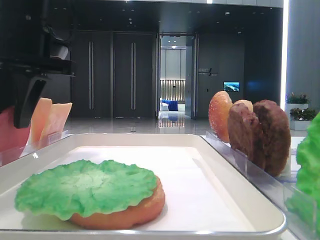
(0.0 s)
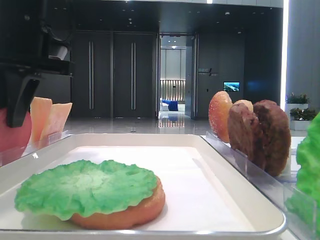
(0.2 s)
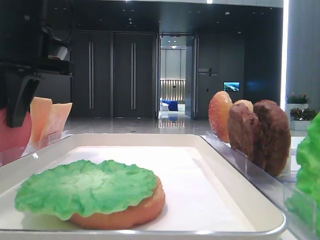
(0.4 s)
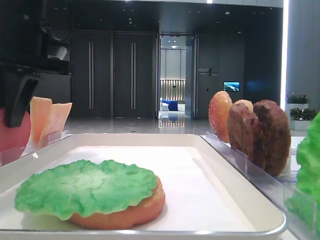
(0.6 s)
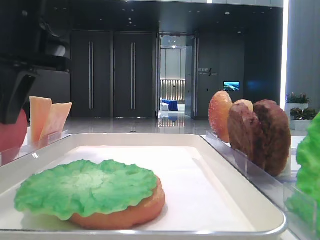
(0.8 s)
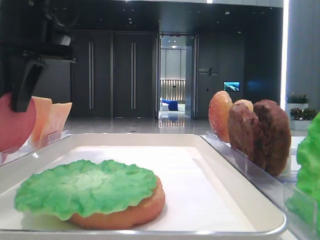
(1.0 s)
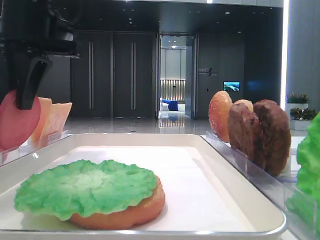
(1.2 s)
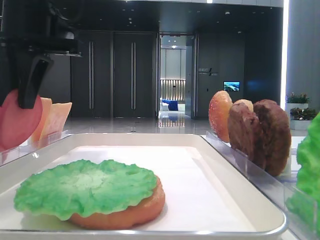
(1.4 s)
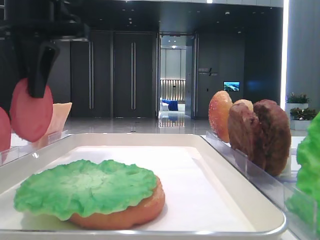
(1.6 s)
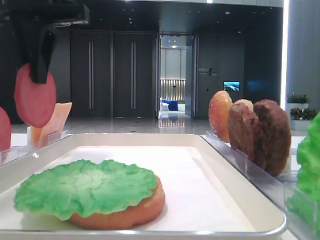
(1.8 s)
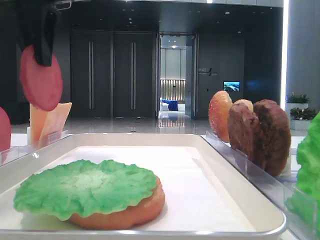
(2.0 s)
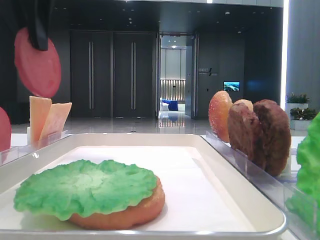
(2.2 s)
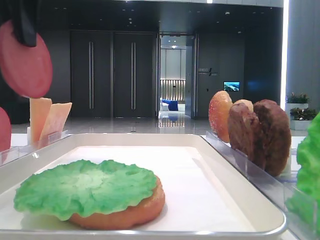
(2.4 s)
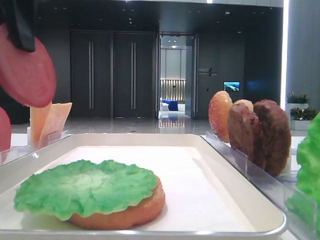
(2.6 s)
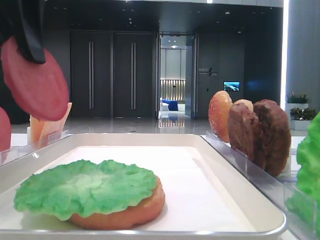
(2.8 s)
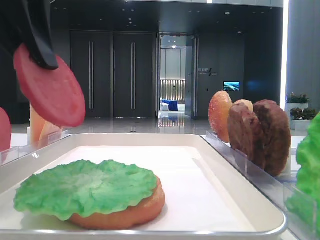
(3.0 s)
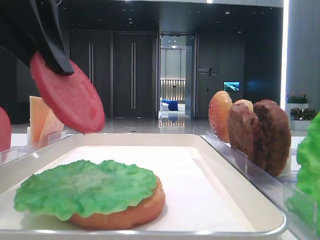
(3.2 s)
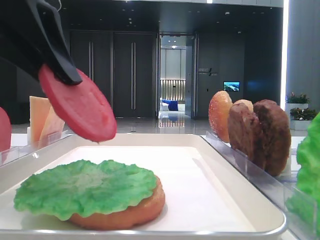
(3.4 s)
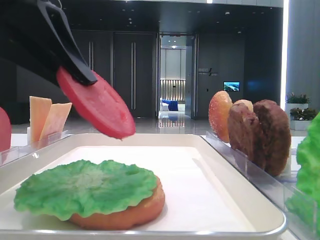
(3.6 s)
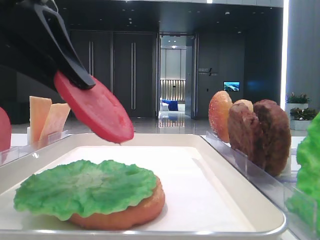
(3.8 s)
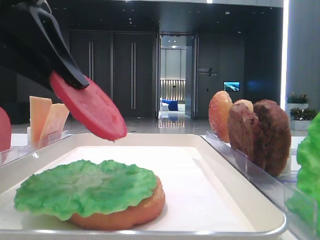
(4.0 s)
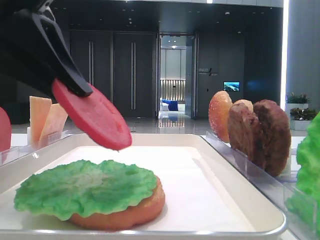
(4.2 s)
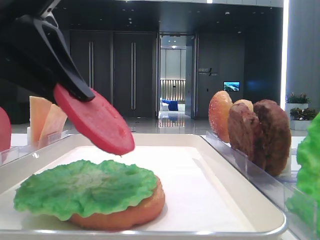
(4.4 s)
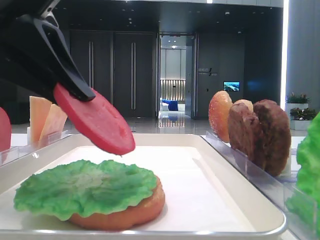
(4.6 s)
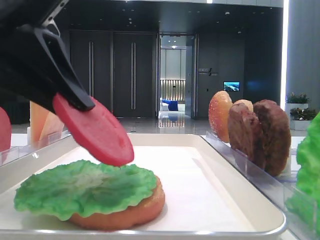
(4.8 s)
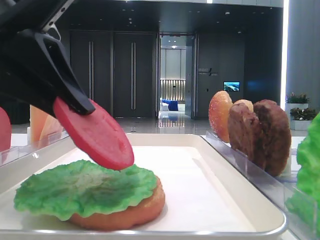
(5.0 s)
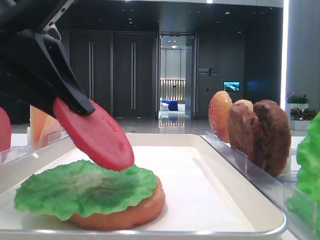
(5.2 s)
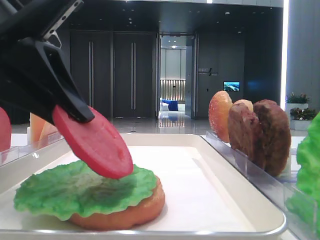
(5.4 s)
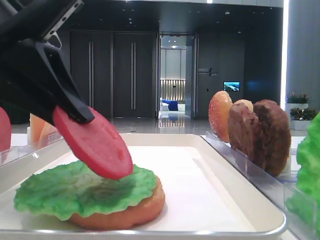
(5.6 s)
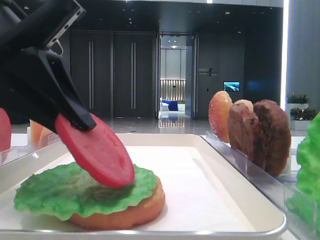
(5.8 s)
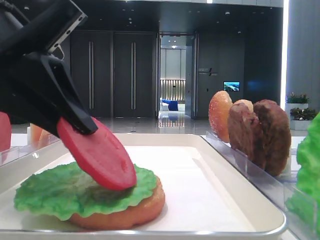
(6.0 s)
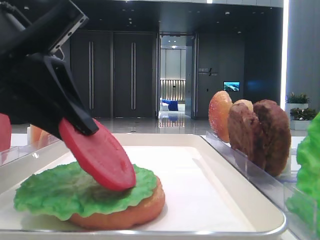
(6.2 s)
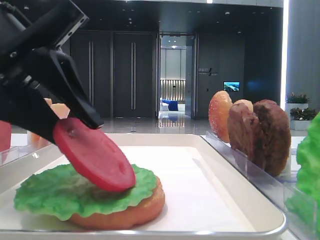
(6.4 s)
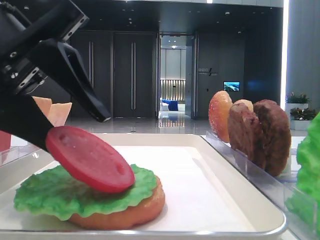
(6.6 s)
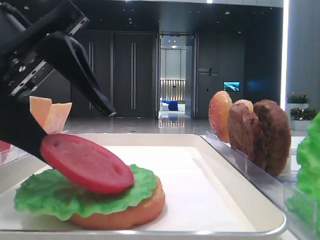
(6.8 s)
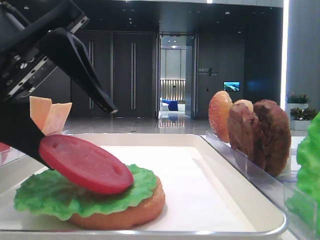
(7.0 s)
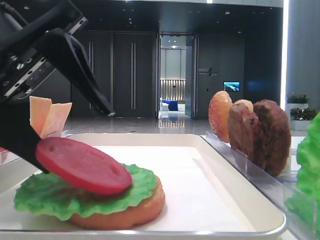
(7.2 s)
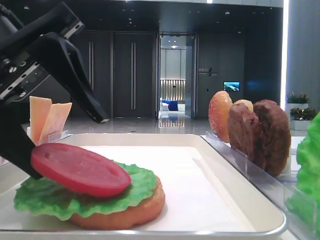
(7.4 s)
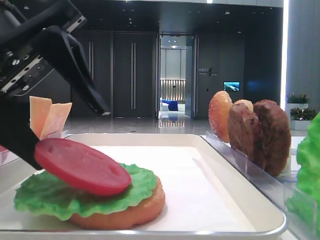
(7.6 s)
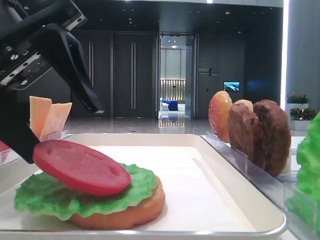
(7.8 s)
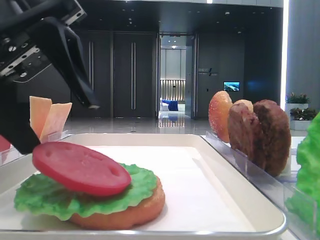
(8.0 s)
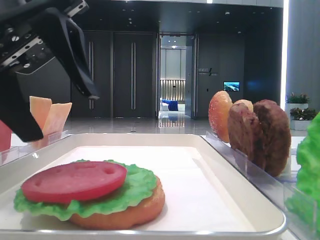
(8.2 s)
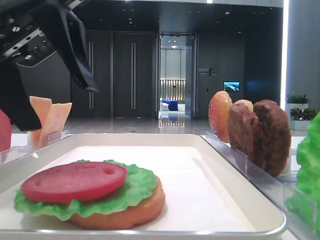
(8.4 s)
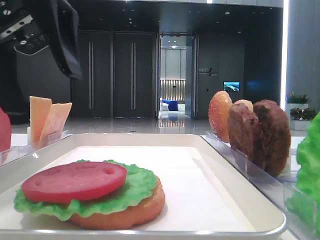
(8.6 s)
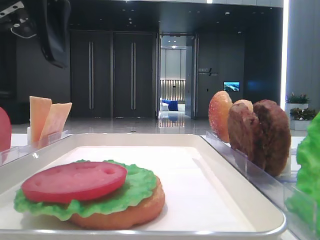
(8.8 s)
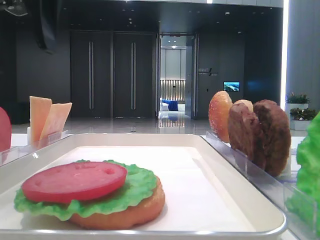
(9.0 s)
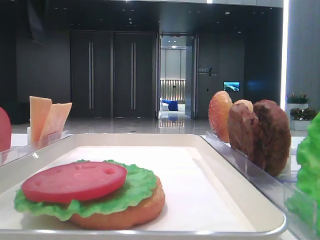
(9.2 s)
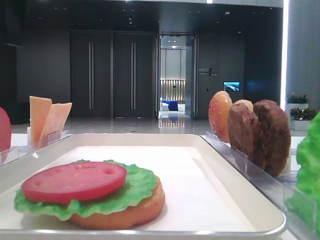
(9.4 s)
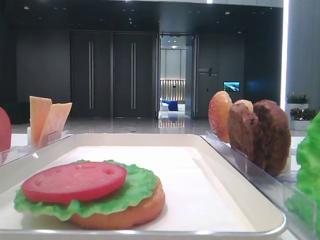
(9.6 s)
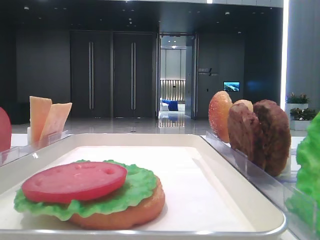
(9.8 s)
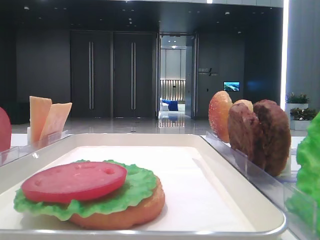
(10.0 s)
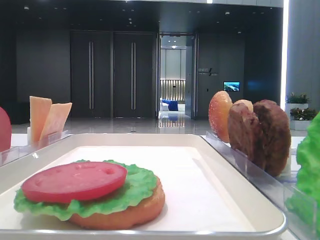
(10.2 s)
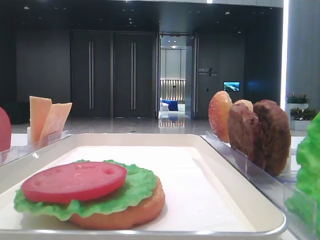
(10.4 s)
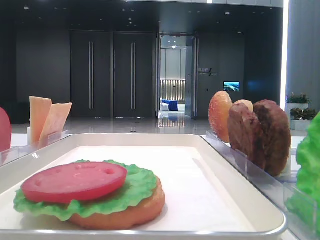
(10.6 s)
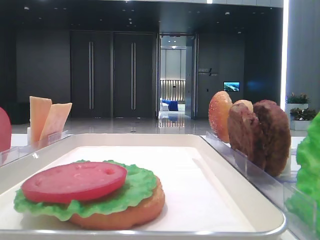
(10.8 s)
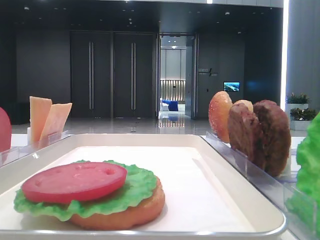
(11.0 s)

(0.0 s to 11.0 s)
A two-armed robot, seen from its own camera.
Step, 0.8 s - 8.0 s: Place the tomato slice on the lettuce leaf with the left hand.
0.0 s - 1.6 s: There are only small adjustments of the grippers.
1.6 s - 3.2 s: The left gripper is displaced backward by about 10 cm.
3.2 s - 4.8 s: The left gripper goes some 5 cm downward.
4.8 s - 6.2 s: There are only small adjustments of the grippers.
6.2 s - 7.8 s: The left gripper opens its fingers.
7.8 s - 9.4 s: The left gripper is displaced upward by some 10 cm.
9.4 s - 11.0 s: The left gripper travels backward and to the left by approximately 20 cm.

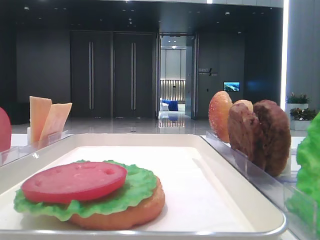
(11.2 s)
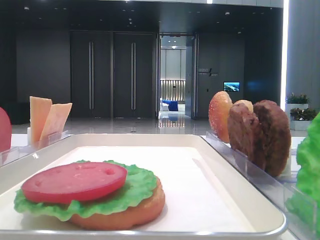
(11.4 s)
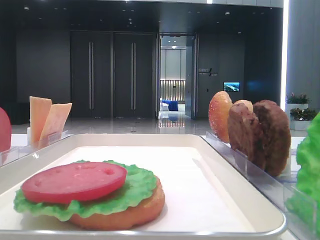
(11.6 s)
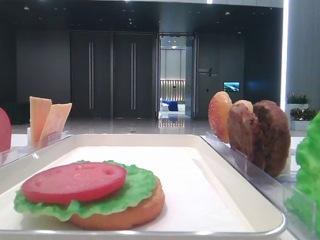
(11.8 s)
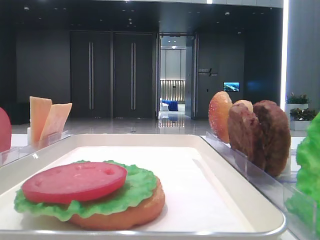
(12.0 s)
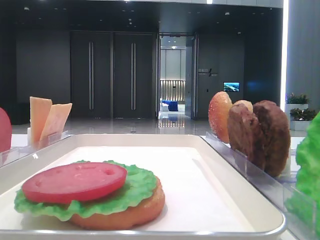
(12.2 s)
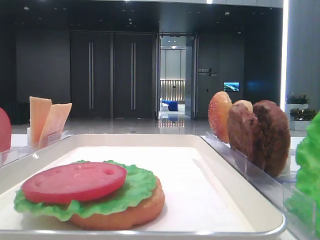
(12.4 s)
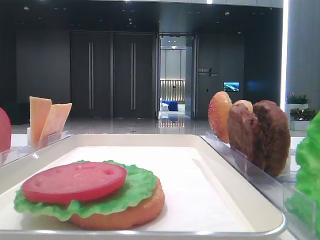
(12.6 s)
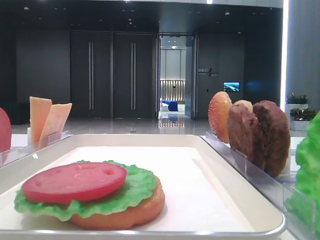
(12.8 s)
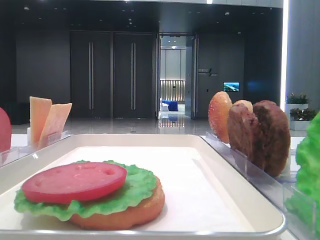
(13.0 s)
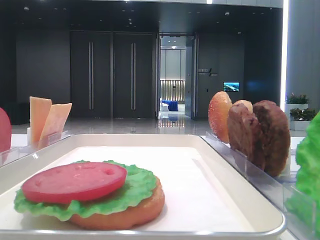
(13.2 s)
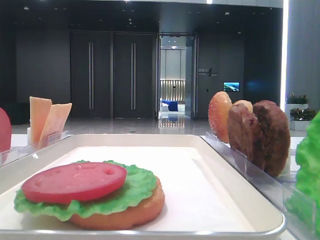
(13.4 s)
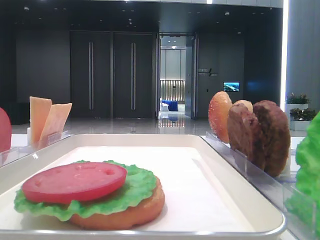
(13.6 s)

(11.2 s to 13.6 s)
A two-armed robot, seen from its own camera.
12.4 s - 13.6 s: Both grippers stay about where they are.

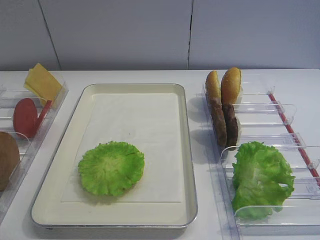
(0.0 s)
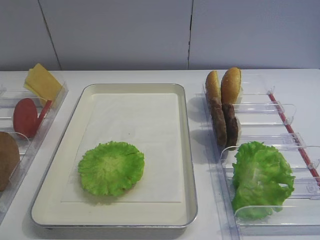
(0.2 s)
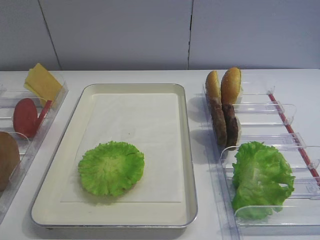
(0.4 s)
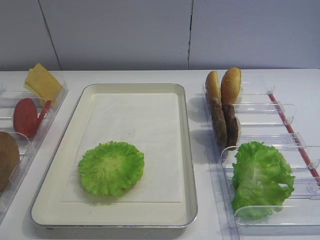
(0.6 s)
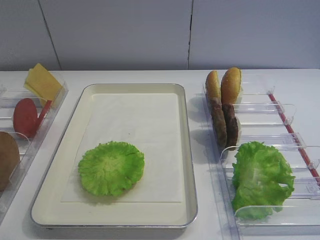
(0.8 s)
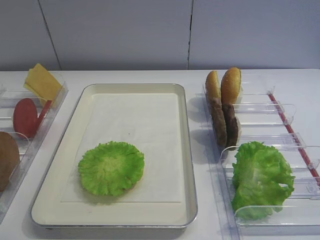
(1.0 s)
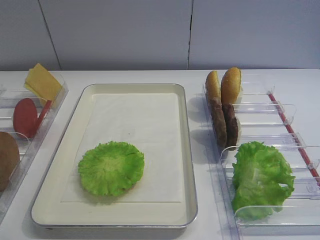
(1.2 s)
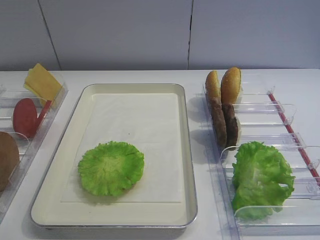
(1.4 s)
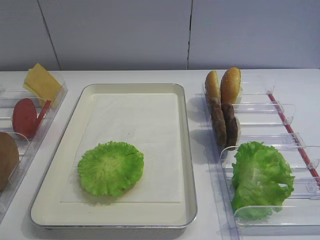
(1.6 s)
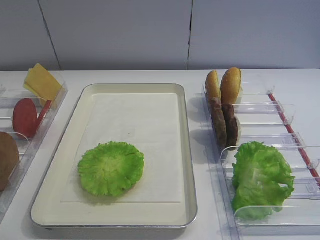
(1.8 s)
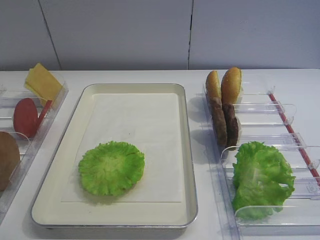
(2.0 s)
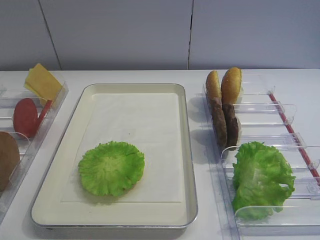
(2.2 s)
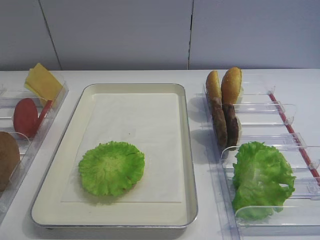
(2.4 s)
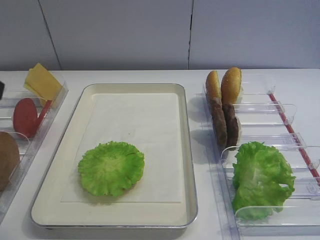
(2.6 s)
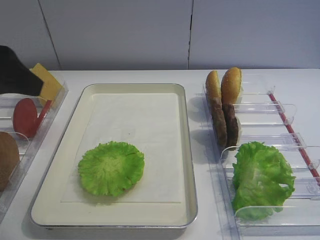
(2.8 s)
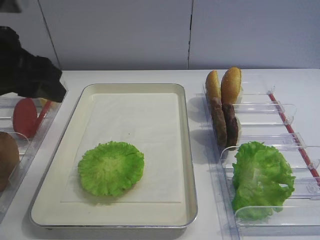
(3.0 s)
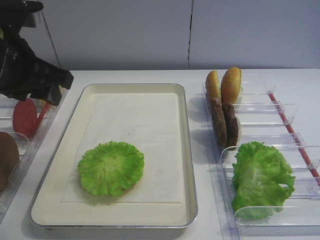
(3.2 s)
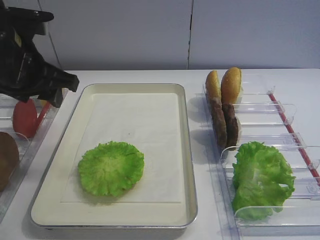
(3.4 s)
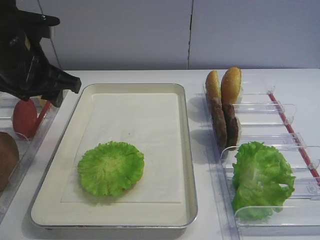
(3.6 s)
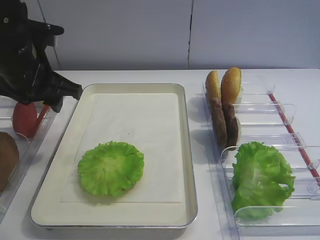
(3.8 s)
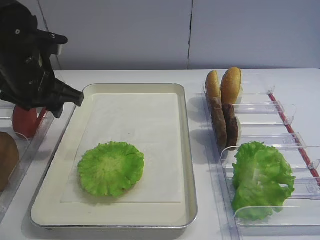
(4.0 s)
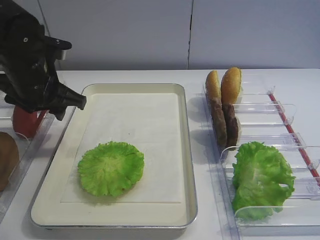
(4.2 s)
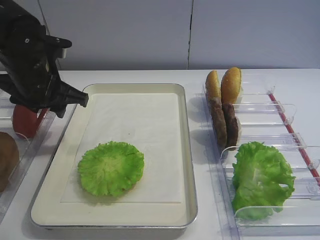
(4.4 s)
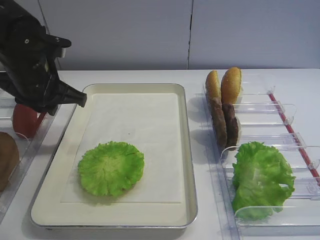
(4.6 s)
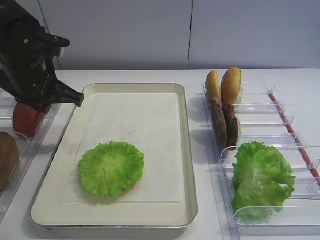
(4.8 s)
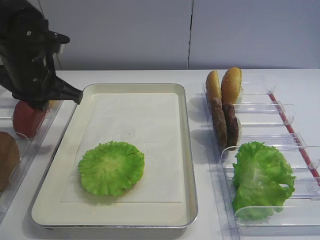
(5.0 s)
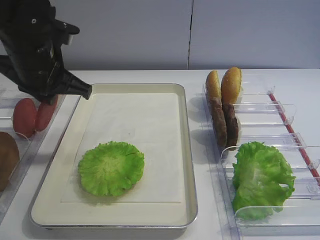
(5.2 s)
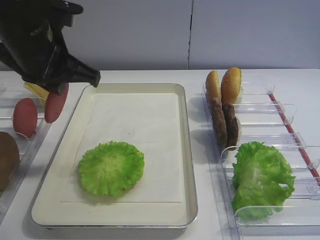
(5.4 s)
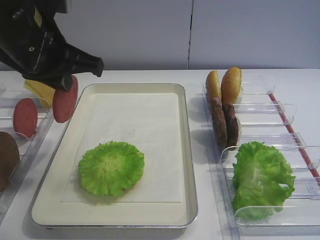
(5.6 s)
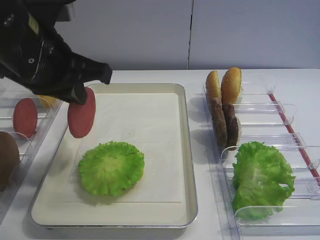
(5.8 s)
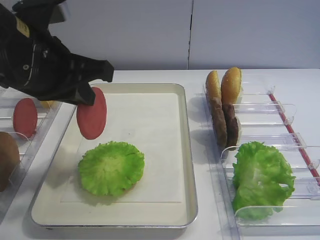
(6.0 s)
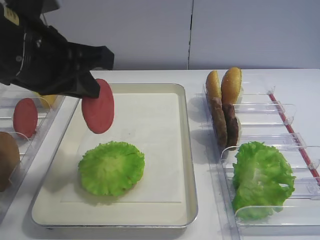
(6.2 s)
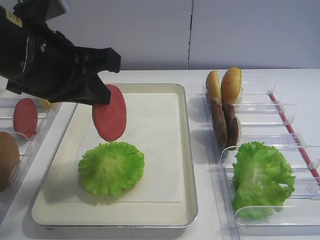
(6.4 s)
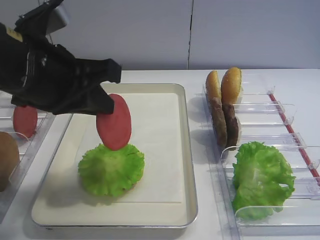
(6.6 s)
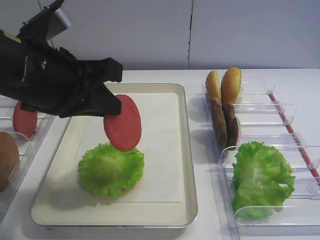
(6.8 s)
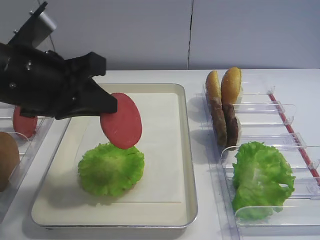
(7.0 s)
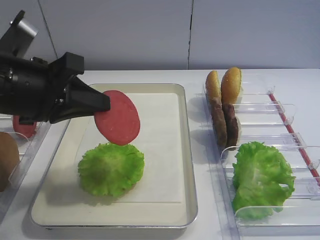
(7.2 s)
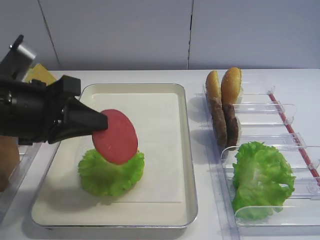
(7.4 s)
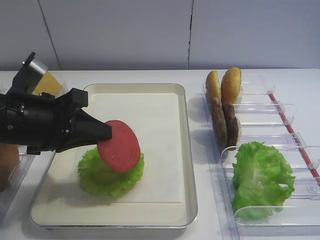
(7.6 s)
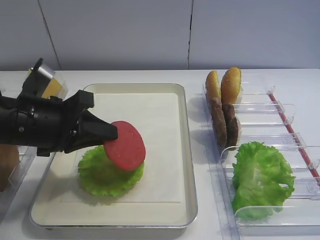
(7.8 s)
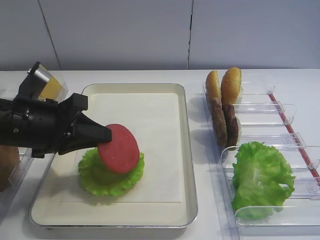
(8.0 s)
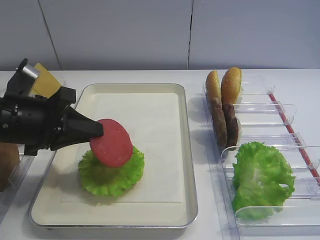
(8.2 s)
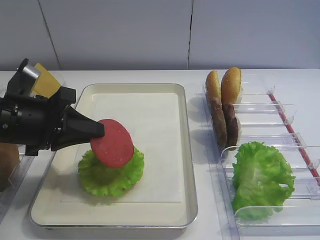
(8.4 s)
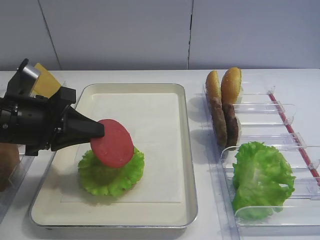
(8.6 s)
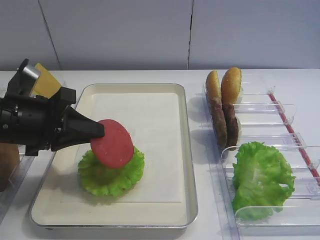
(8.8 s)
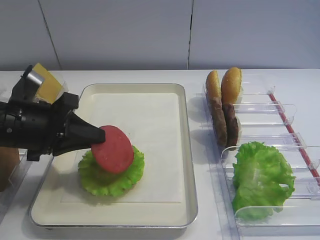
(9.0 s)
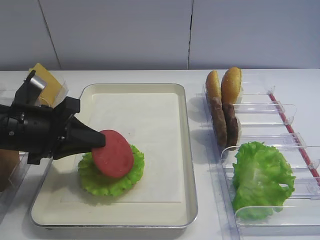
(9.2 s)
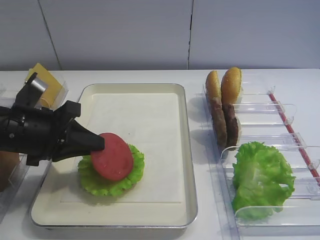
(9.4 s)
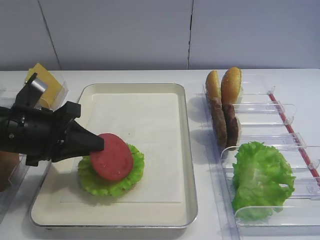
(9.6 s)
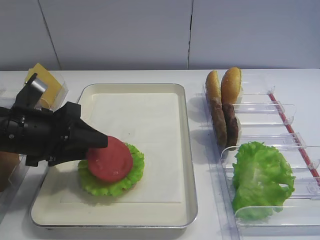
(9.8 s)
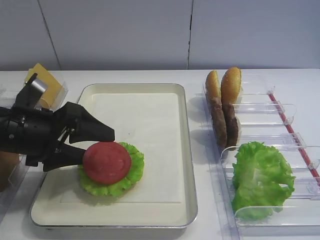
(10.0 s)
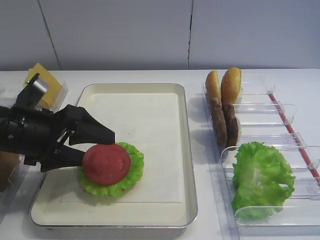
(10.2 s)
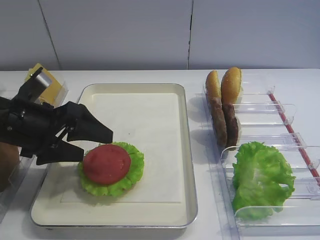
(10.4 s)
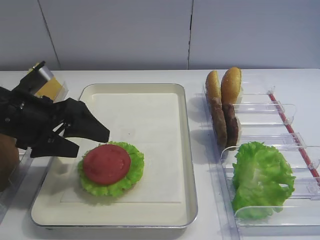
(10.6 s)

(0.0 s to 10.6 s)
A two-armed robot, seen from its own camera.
Step, 0.0 s - 5.0 s: Pick up the tomato slice with the left gripper.
1.6 s - 3.0 s: The left gripper heads forward, covering approximately 25 cm.
3.0 s - 4.6 s: The left gripper moves forward and downward, approximately 15 cm, and closes up.
4.6 s - 6.0 s: The left gripper shifts roughly 10 cm backward and upward.
6.0 s - 7.6 s: The left gripper heads downward, covering approximately 10 cm.
7.6 s - 9.0 s: There are only small adjustments of the grippers.
9.0 s - 10.6 s: The left gripper opens.
